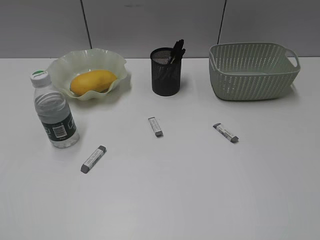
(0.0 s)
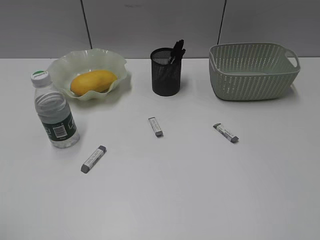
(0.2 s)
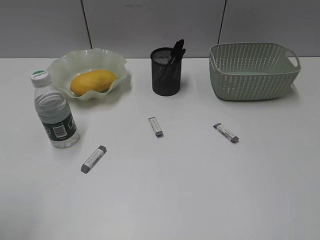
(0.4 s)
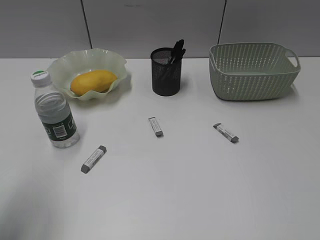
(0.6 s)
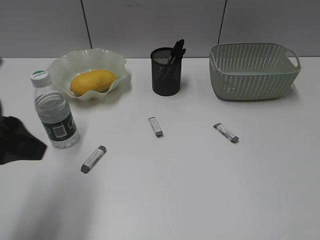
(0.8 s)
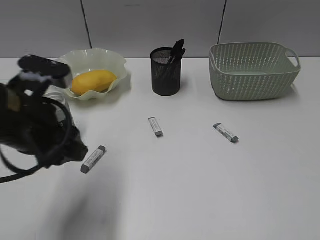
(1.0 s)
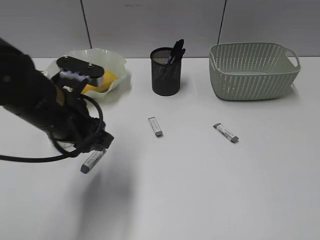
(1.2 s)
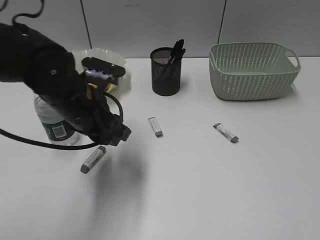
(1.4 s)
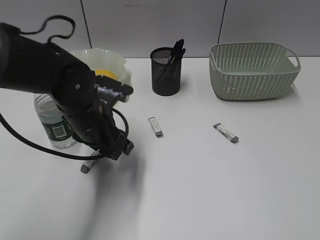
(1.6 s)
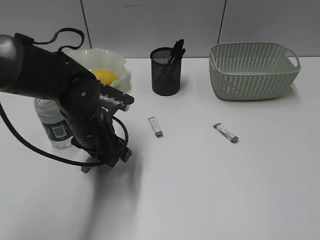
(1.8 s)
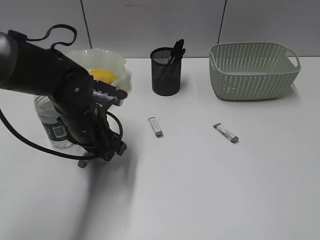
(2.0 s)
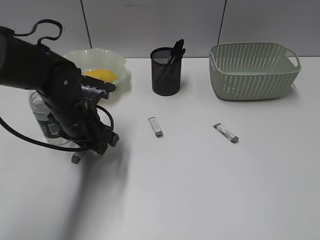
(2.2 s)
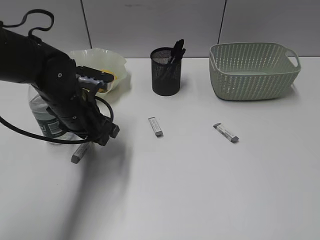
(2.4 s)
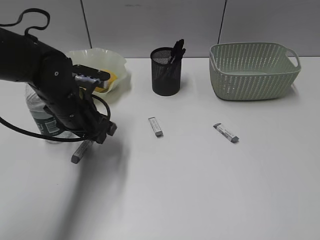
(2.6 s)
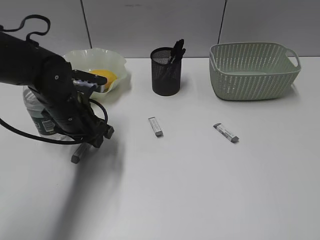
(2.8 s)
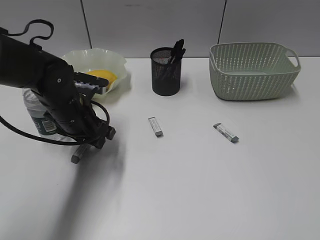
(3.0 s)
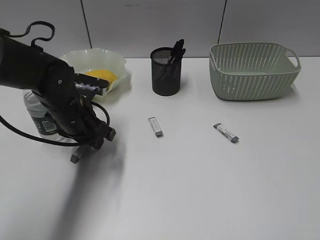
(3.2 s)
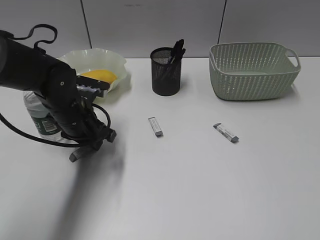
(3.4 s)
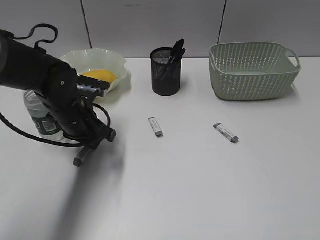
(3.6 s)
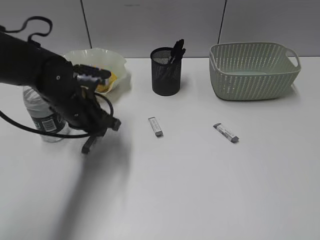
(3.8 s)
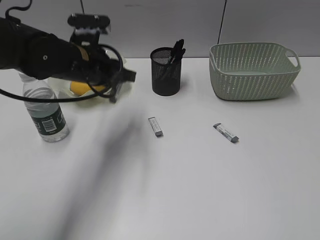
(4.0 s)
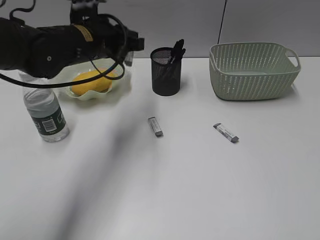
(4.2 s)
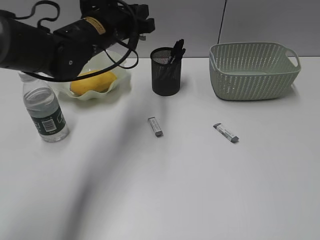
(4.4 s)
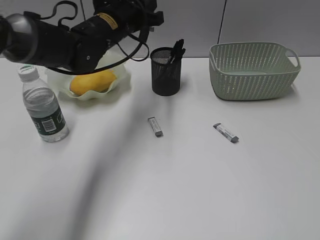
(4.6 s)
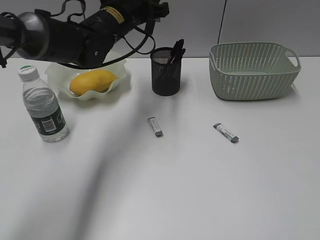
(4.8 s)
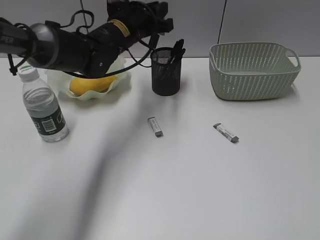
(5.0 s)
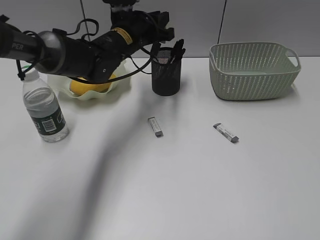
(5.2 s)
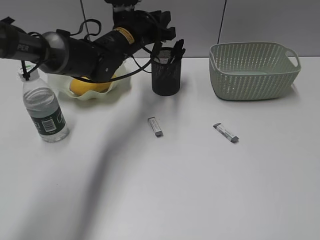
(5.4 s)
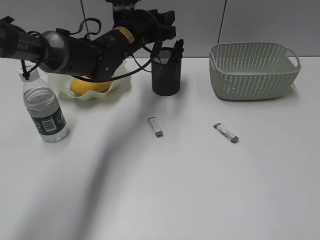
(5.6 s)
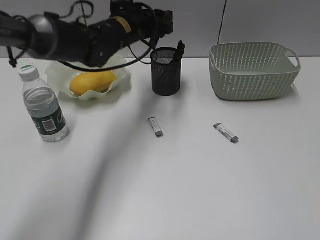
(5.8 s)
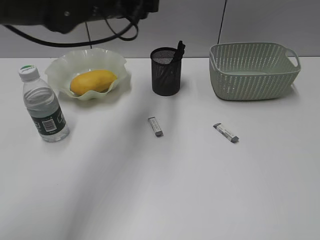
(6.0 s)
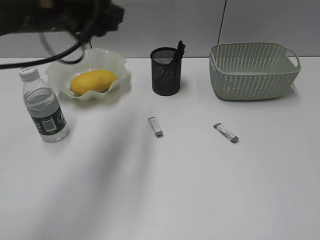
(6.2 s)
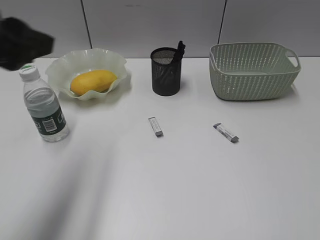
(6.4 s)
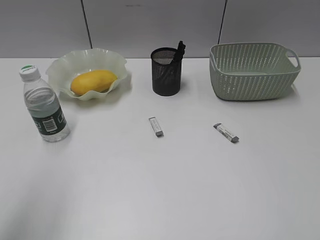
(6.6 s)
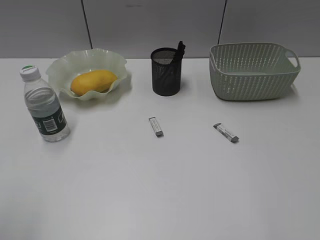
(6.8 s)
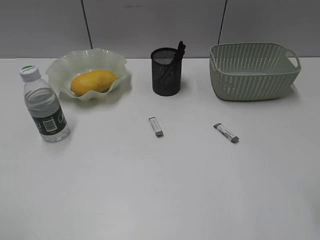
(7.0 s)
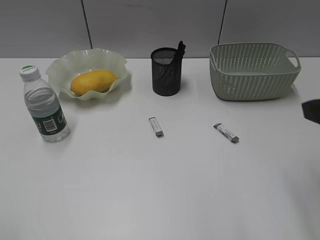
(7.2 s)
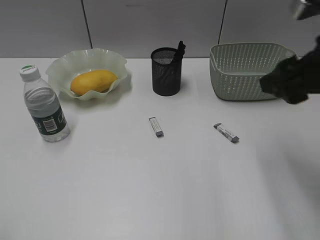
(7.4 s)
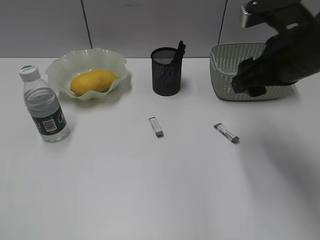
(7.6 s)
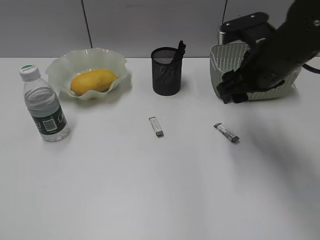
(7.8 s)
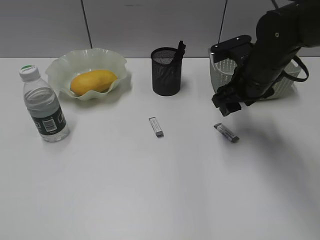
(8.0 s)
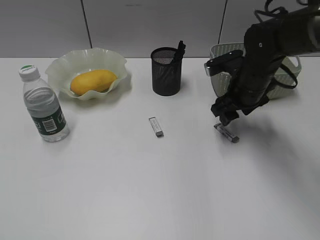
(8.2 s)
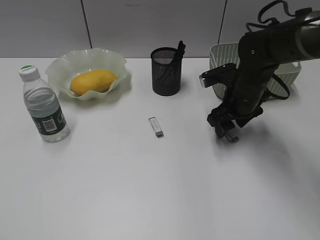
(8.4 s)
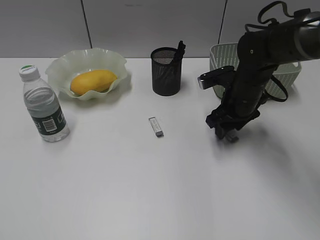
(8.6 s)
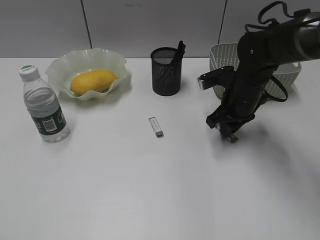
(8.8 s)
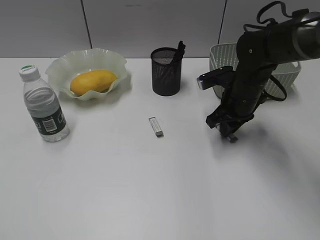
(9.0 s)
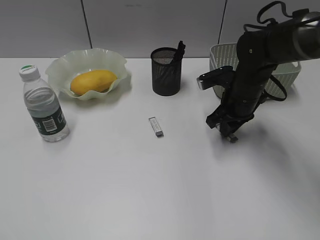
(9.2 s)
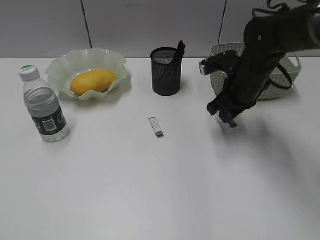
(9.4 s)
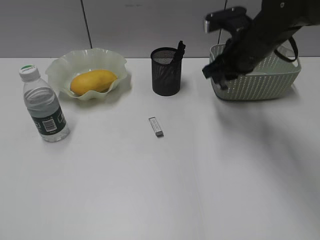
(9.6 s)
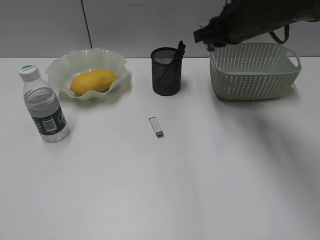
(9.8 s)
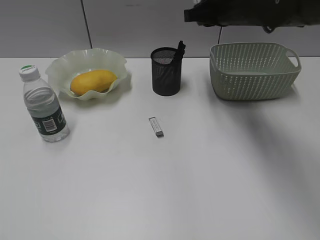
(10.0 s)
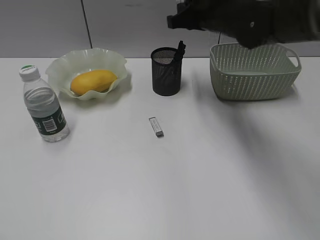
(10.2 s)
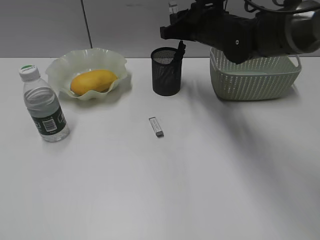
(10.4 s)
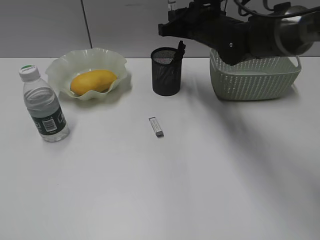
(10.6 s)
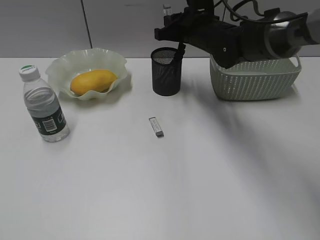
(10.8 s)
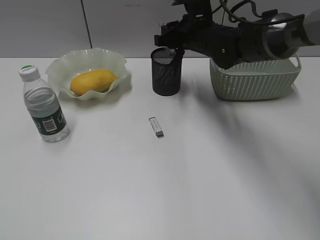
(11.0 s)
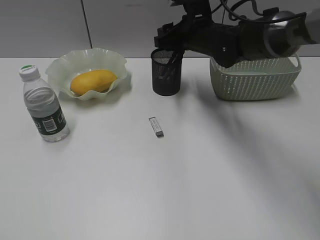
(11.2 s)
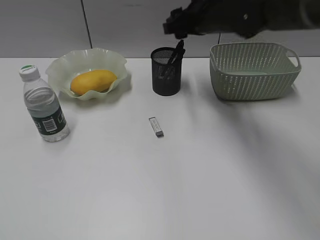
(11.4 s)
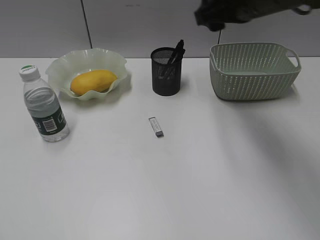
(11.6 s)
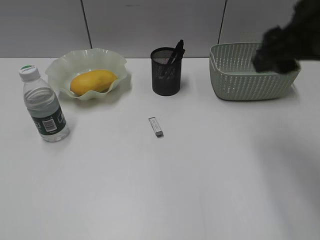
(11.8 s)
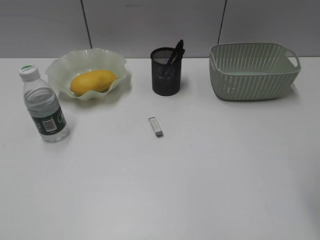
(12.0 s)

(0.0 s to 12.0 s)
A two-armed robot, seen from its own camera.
Step, 0.0 s - 3.8 s: Grasp the eraser with left gripper.
Step, 4.0 s - 5.6 s: Place the eraser in pen holder with left gripper.
Step, 5.8 s - 9.2 s: Grasp the eraser with right gripper.
0.0 s - 1.6 s: The left gripper moves forward, to the right and downward, about 40 cm, and opens up.
1.6 s - 3.0 s: The left gripper changes place by roughly 5 cm.
3.0 s - 4.4 s: The left gripper goes roughly 15 cm upward, forward and to the right, and closes its fingers.
4.4 s - 6.0 s: The left gripper opens up.
6.0 s - 7.6 s: The right gripper shifts some 30 cm forward and to the left. The left gripper heads backward and to the left, covering roughly 50 cm.
7.6 s - 9.0 s: The right gripper travels downward and forward by about 20 cm, and closes up.
9.0 s - 10.4 s: The right gripper heads upward and to the left, covering about 10 cm.
10.4 s - 12.0 s: The right gripper goes some 30 cm backward, to the right and upward, and opens.

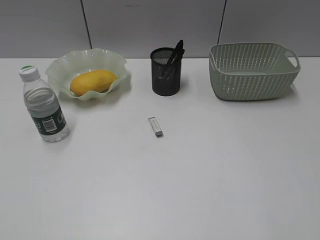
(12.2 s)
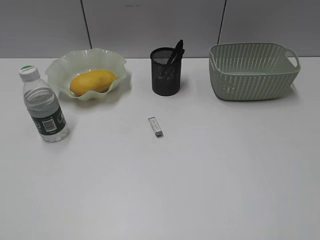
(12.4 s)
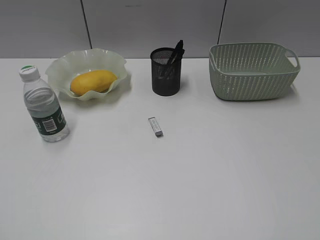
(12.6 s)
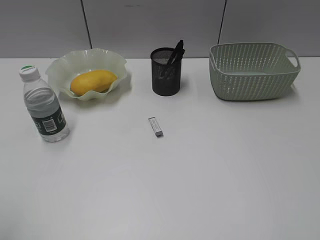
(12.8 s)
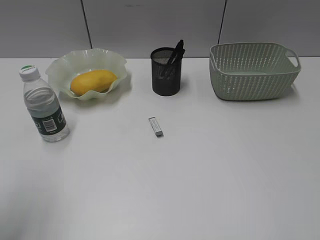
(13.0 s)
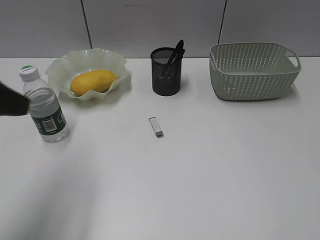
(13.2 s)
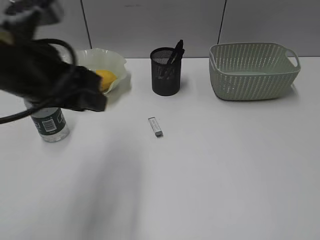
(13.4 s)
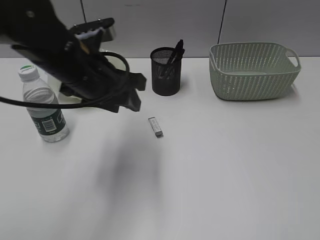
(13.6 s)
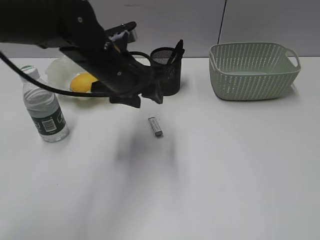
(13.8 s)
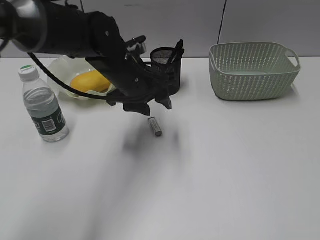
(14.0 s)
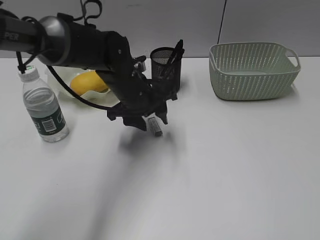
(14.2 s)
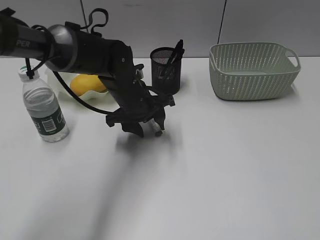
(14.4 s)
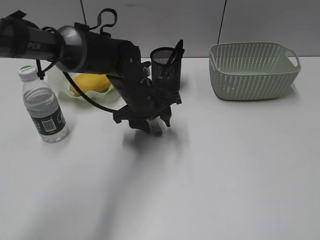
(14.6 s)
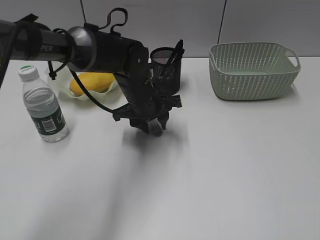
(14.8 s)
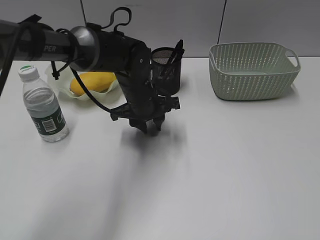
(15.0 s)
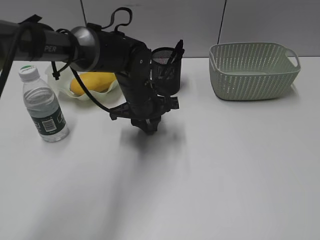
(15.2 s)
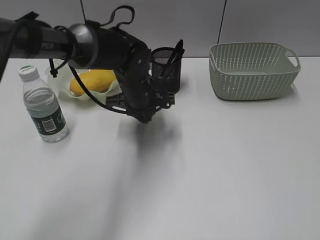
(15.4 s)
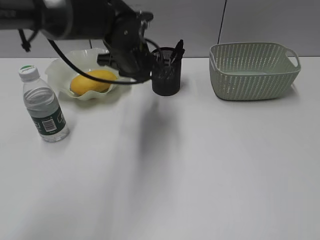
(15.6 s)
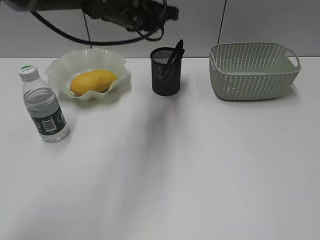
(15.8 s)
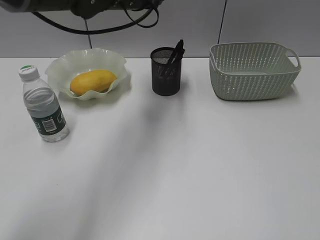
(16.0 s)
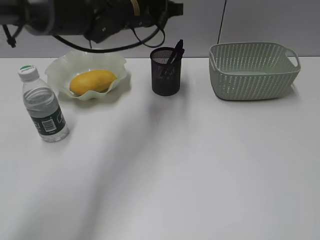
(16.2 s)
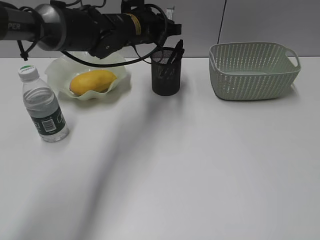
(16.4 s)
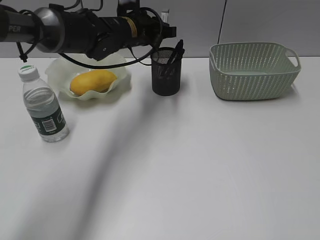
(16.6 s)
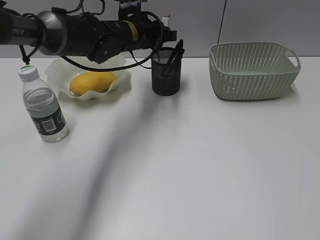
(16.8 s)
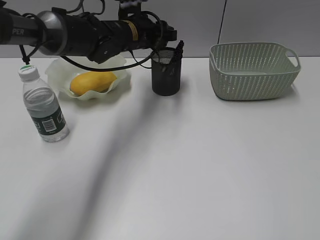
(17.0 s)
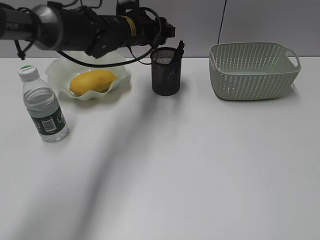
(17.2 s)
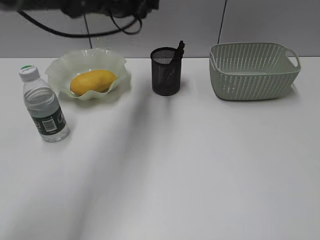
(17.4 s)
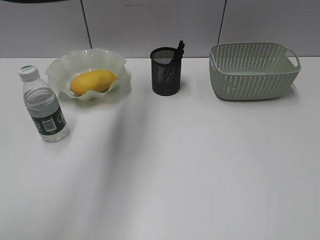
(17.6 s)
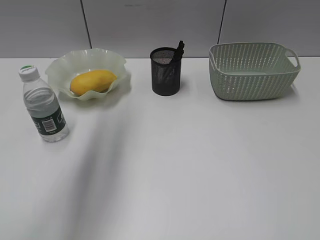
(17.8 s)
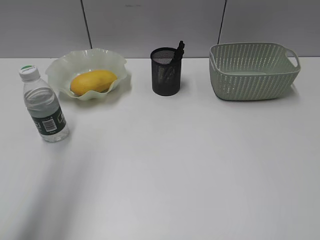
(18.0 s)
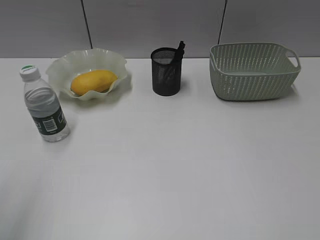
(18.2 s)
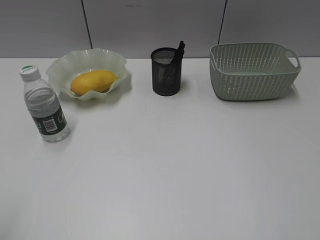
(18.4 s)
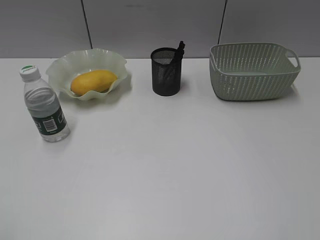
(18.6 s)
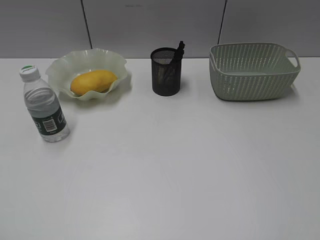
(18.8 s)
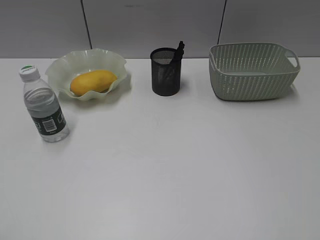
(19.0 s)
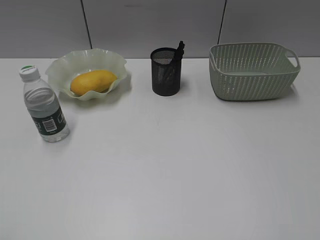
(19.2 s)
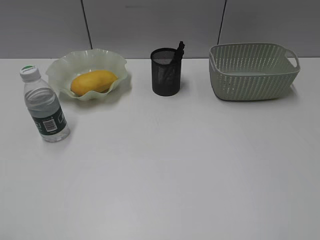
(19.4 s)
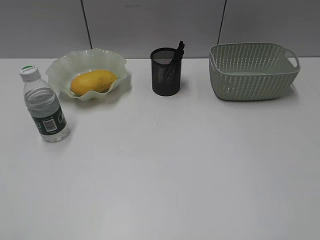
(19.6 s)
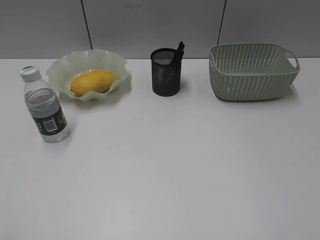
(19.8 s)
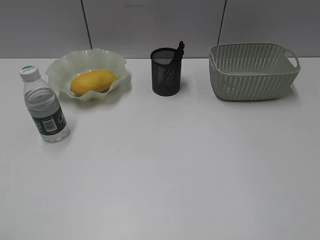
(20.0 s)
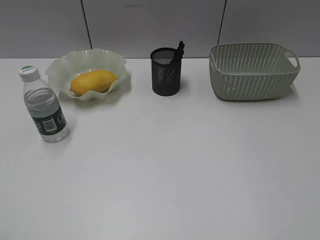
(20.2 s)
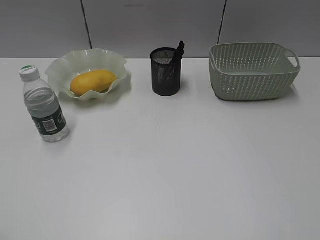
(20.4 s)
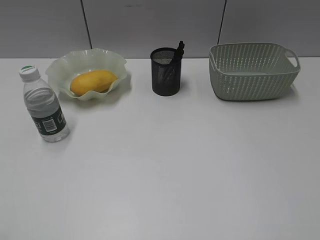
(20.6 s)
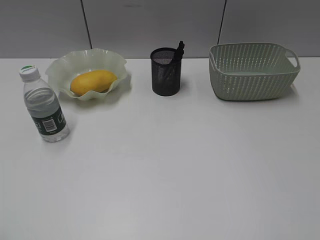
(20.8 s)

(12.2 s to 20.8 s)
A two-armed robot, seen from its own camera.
Step, 12.2 s - 15.4 s: Grasp the eraser with left gripper.
Step, 15.6 s - 17.2 s: Place the eraser in pen holder with left gripper.
12.2 s - 13.6 s: The right gripper is displaced backward by roughly 10 cm, while the left gripper is displaced forward and to the right by some 35 cm.
13.6 s - 15.0 s: The left gripper moves downward, forward and to the right, roughly 15 cm.
15.0 s - 16.6 s: The left gripper shifts some 10 cm upward and forward.
16.6 s - 18.0 s: The left gripper is displaced backward, upward and to the left by some 35 cm, and opens its fingers.
18.0 s - 19.4 s: The left gripper travels backward, to the left and downward by roughly 25 cm.

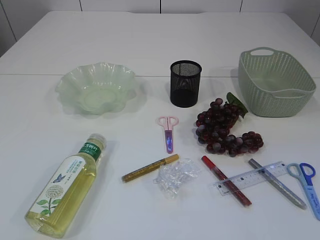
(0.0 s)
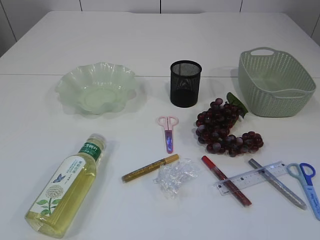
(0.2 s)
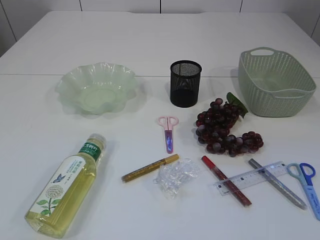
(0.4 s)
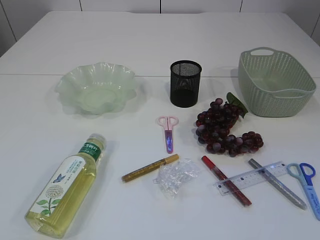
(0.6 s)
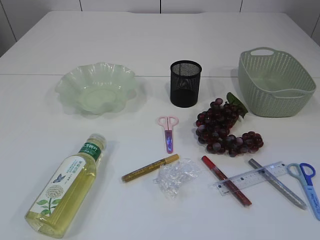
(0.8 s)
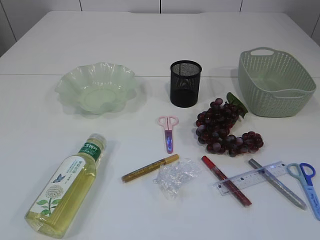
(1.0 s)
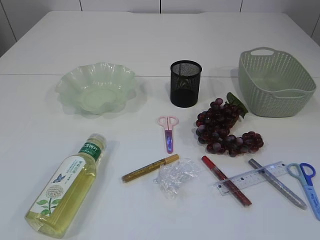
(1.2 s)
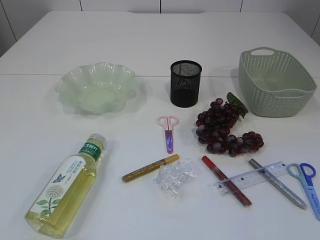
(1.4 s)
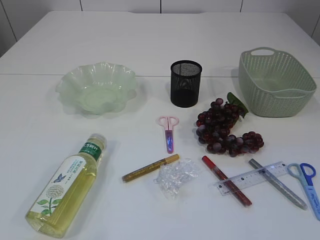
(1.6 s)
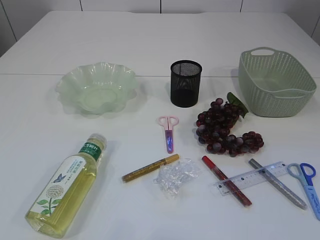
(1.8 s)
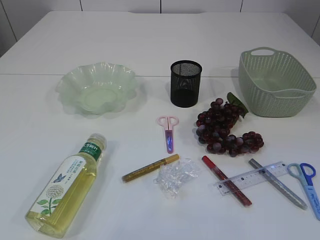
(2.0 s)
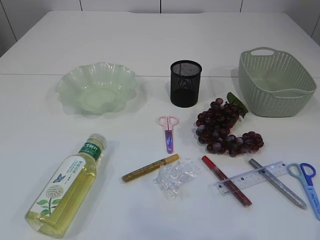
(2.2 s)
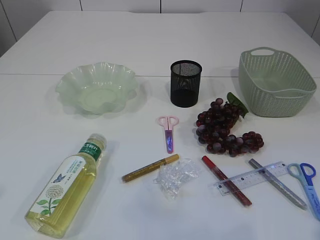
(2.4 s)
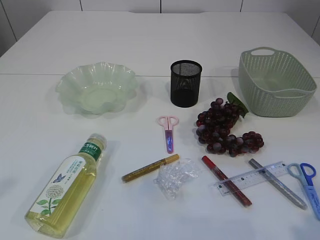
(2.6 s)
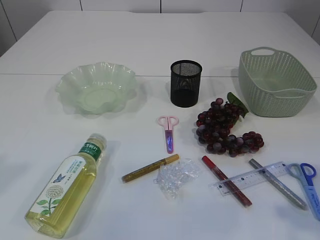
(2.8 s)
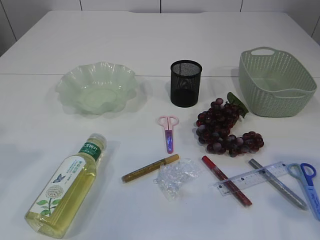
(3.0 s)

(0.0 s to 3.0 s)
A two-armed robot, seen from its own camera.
1.6 s - 3.0 s: The grippers both shift forward and upward by approximately 20 cm.
